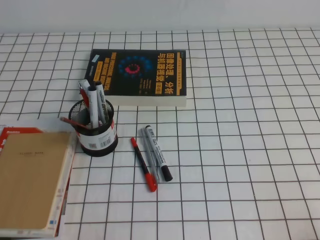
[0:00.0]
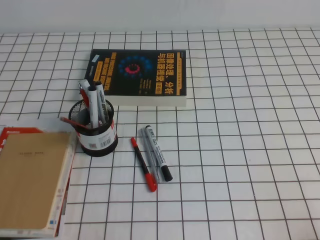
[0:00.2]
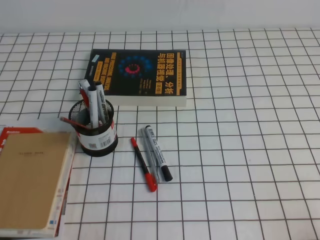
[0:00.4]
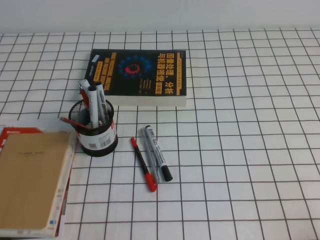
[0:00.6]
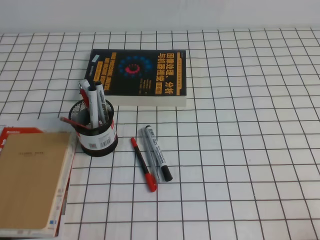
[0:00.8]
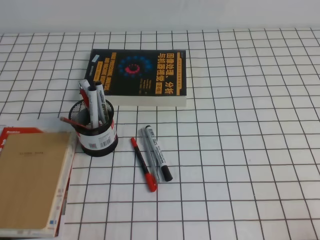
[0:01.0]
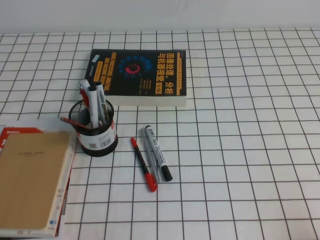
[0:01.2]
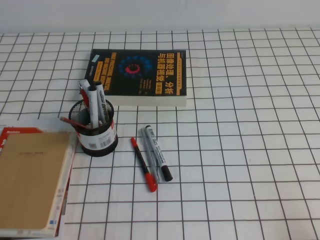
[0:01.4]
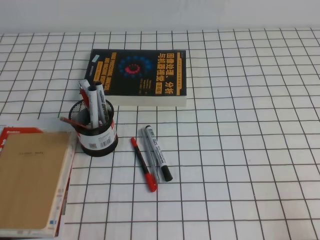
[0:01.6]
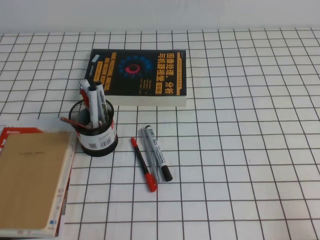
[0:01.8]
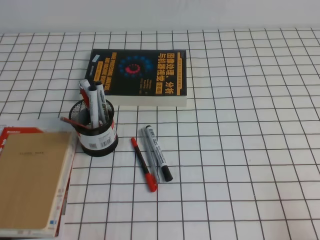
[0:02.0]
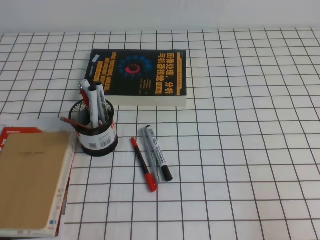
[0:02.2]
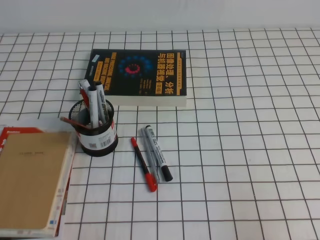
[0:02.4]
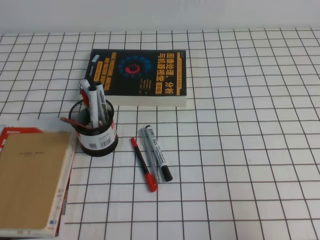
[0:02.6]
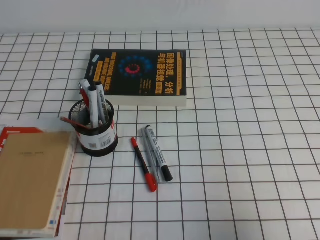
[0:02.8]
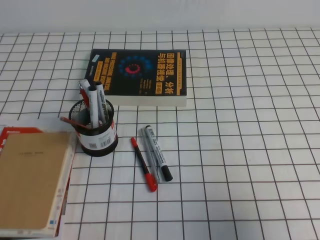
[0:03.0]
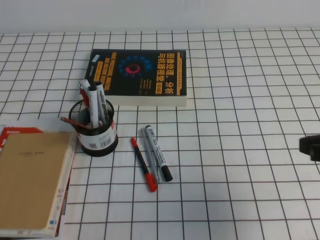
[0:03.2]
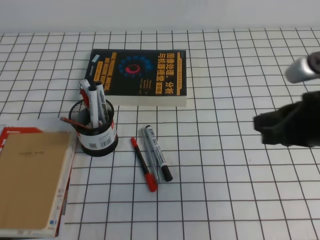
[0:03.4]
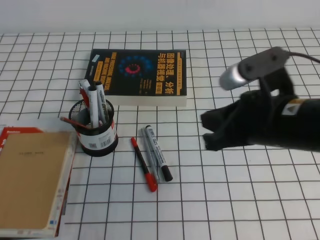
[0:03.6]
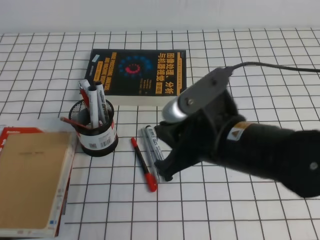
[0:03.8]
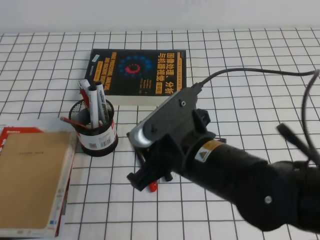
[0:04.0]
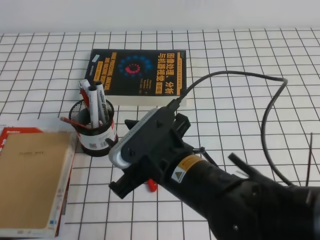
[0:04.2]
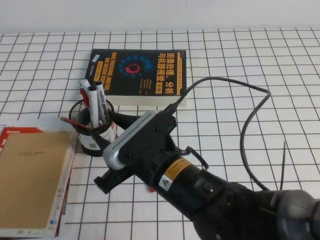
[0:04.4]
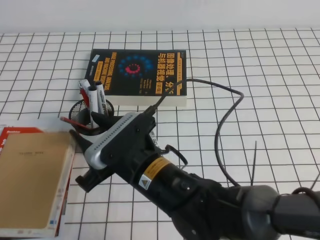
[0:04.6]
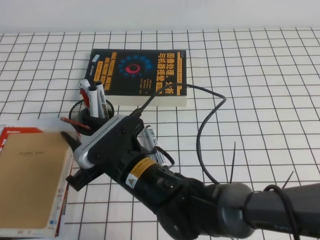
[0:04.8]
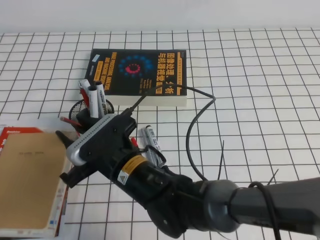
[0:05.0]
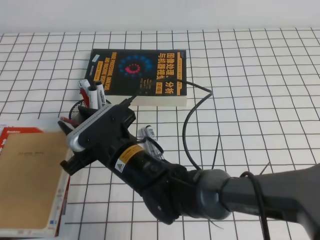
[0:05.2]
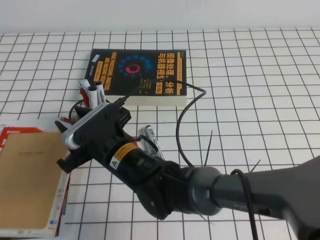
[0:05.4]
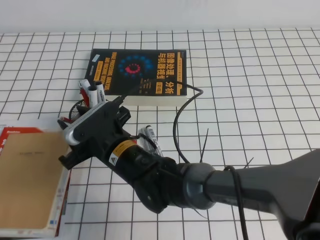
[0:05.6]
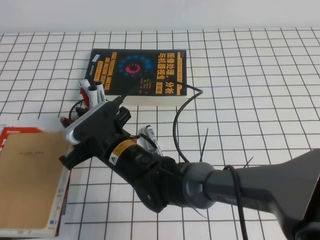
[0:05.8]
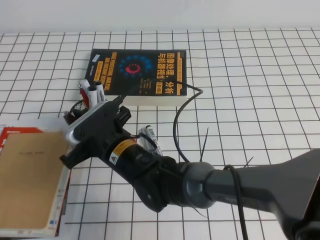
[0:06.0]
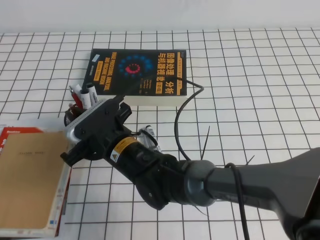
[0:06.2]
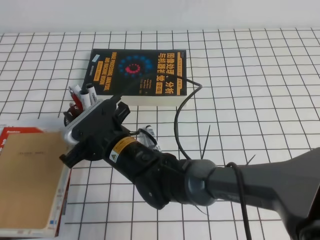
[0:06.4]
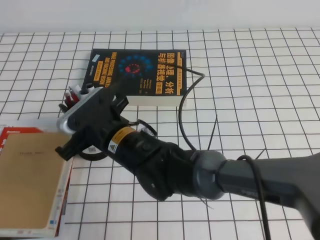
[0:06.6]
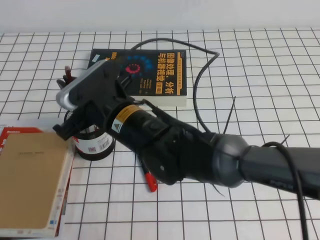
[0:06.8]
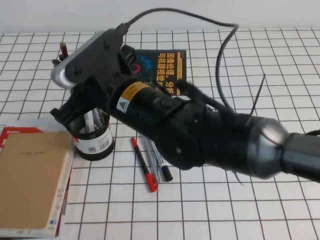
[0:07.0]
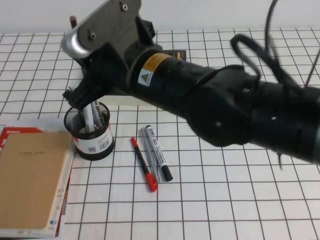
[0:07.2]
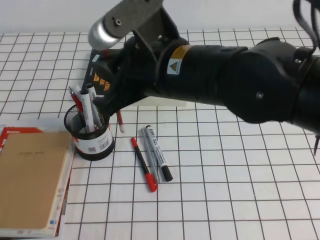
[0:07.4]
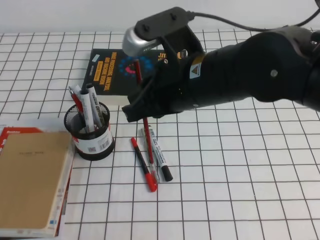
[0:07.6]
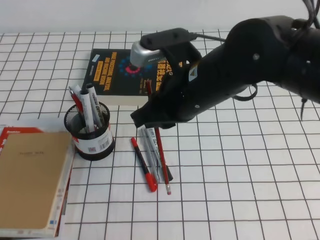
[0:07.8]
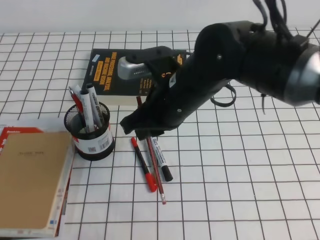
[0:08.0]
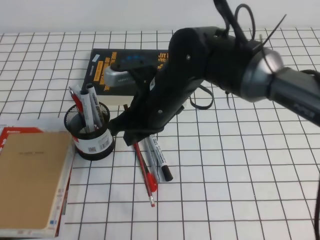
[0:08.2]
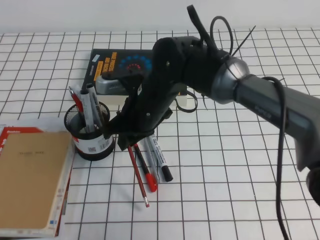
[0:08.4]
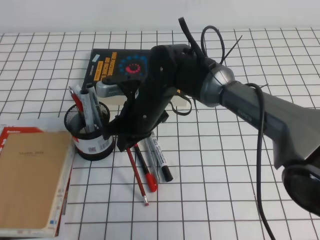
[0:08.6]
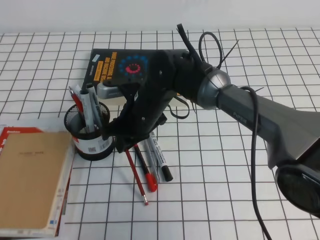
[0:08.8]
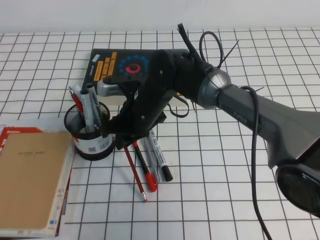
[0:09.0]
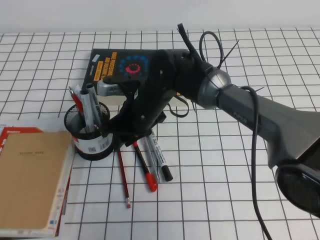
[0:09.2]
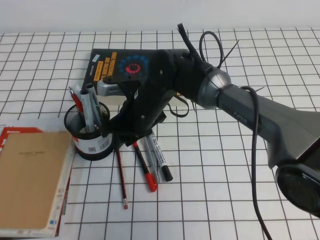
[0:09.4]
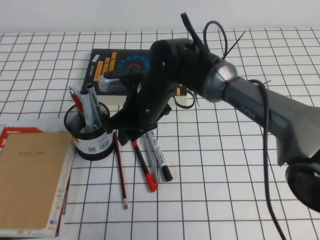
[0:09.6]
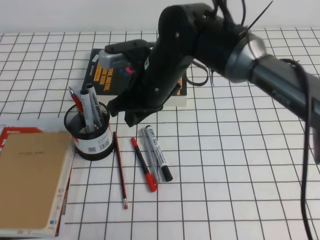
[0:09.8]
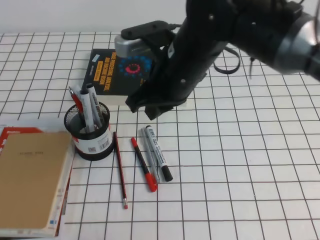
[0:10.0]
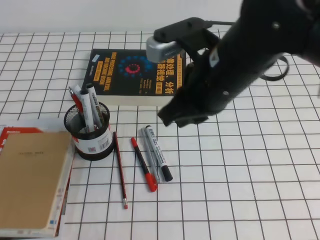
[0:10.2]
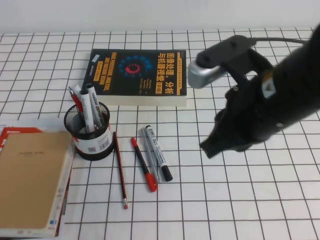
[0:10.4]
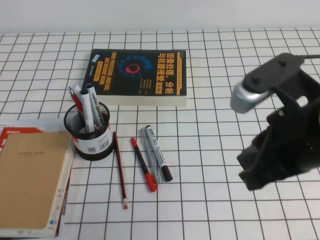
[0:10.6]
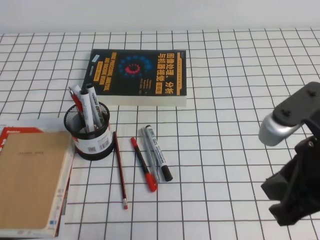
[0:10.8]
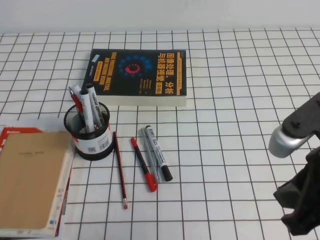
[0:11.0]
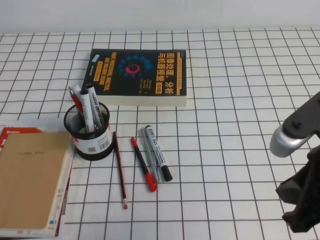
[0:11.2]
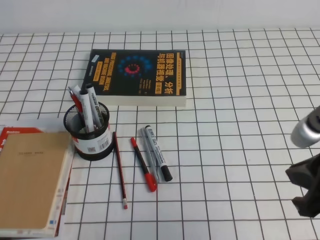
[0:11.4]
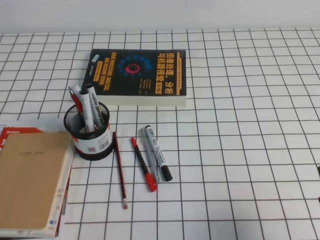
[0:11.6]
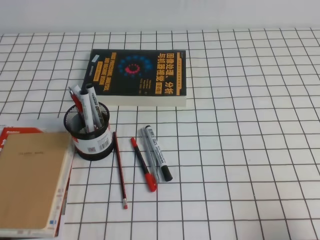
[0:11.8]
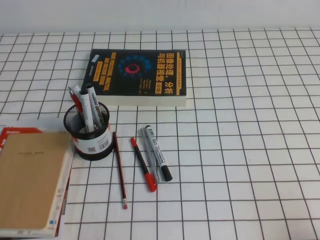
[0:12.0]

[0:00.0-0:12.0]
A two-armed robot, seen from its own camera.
0:01.6 to 0:03.0: The right gripper heads forward and upward, covering about 15 cm.
0:03.0 to 0:04.4: The right gripper goes roughly 30 cm to the left, and opens.
0:04.4 to 0:06.0: The right gripper moves to the left, forward and downward, roughly 15 cm, and closes.
0:06.0 to 0:07.6: The right gripper shifts approximately 20 cm upward and to the right, and closes up.
0:07.6 to 0:09.0: The right gripper moves downward, forward and to the left, roughly 20 cm.
0:09.0 to 0:10.4: The right gripper goes approximately 25 cm to the right, upward and backward, and opens and closes again.
0:10.4 to 0:12.0: The right gripper moves to the right, downward and backward, about 30 cm.

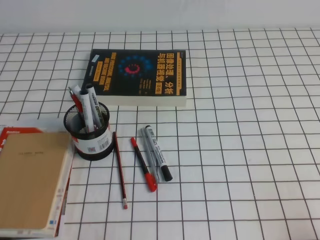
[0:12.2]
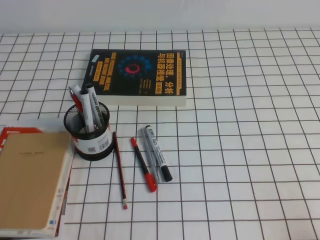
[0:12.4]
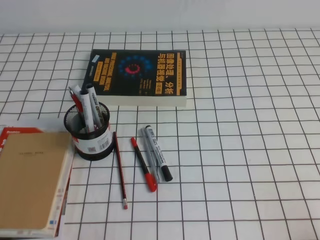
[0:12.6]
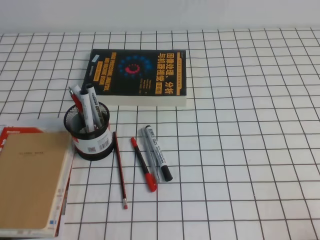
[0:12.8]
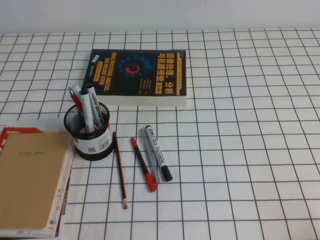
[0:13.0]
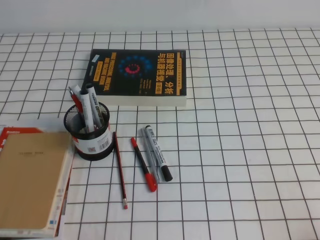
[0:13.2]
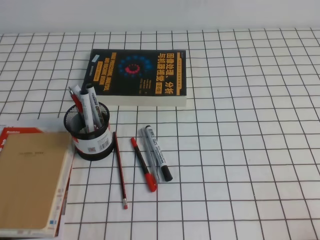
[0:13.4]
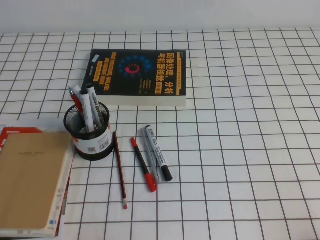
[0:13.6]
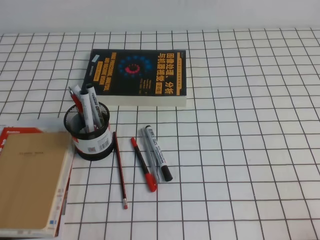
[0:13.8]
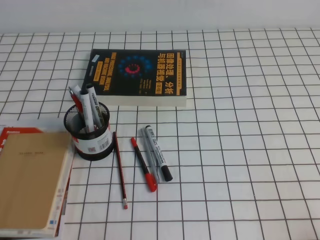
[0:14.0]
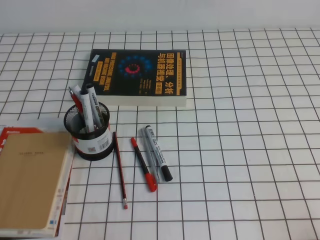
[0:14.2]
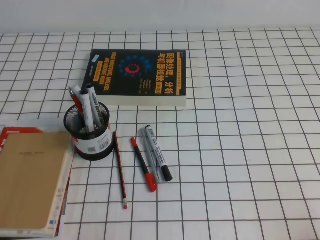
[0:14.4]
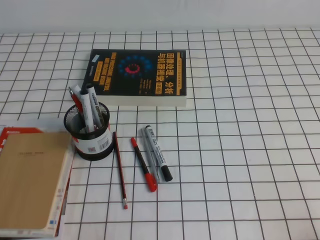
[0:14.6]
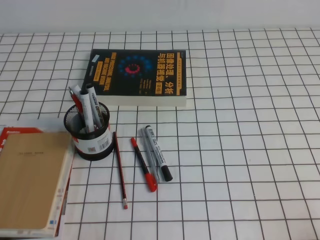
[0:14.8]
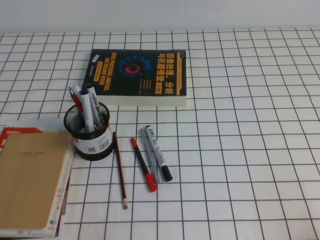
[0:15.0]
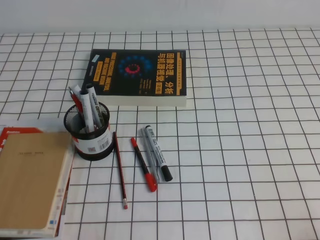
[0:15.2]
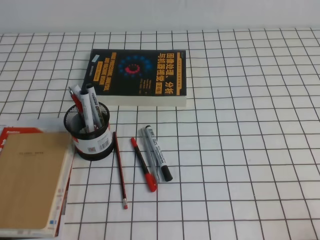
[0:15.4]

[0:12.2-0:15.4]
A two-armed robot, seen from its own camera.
0:13.8 to 0:15.4: Both grippers stay about where they are.

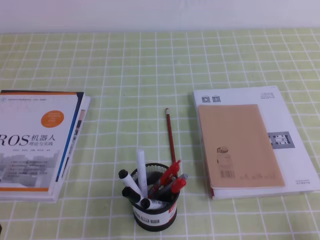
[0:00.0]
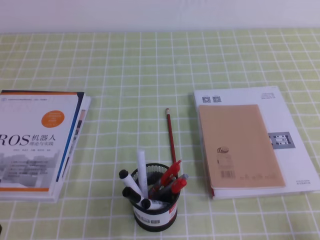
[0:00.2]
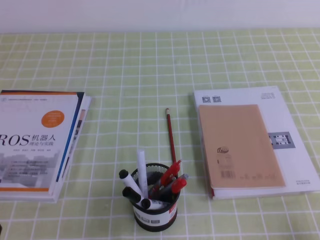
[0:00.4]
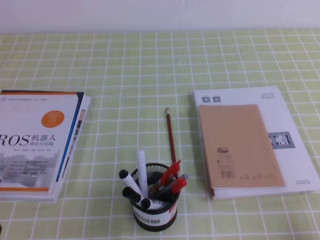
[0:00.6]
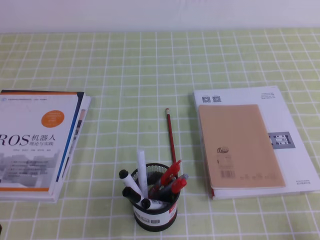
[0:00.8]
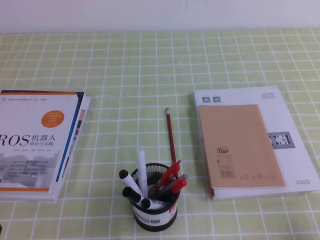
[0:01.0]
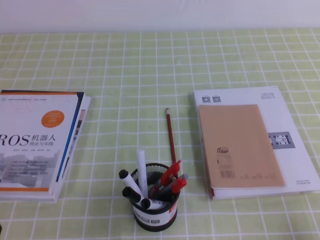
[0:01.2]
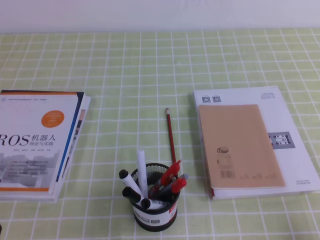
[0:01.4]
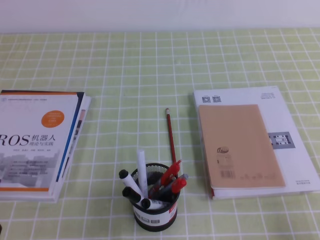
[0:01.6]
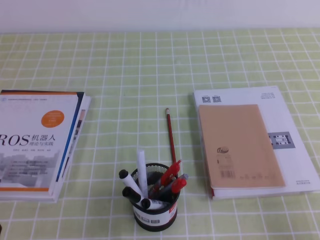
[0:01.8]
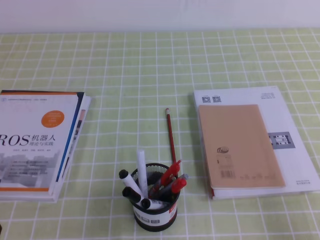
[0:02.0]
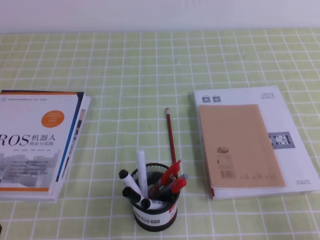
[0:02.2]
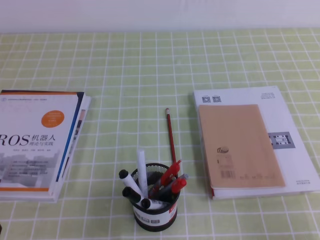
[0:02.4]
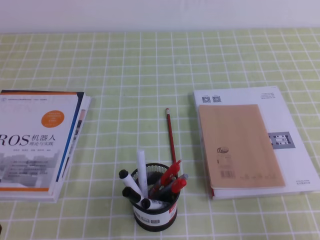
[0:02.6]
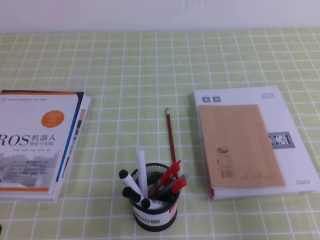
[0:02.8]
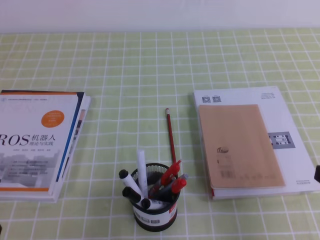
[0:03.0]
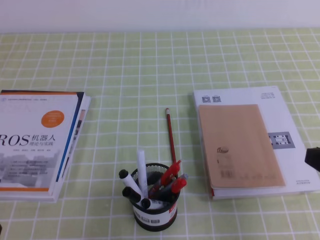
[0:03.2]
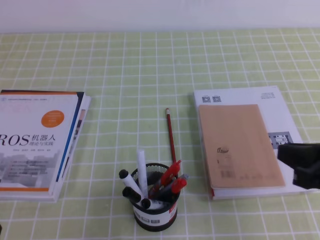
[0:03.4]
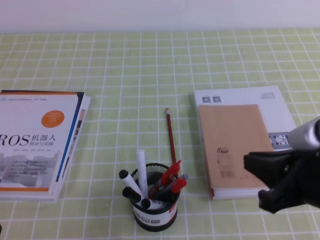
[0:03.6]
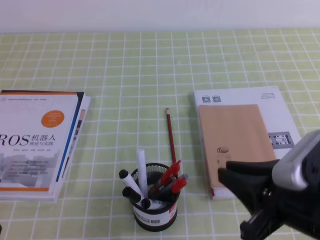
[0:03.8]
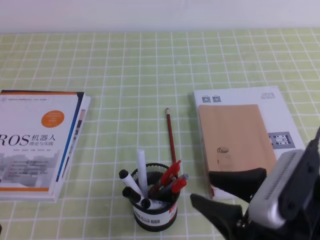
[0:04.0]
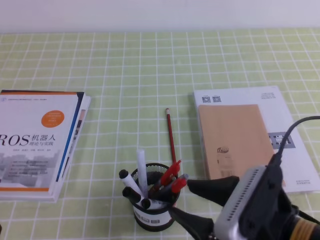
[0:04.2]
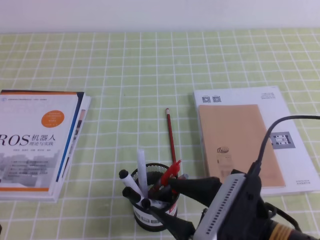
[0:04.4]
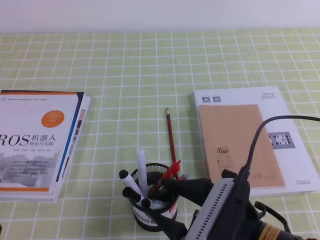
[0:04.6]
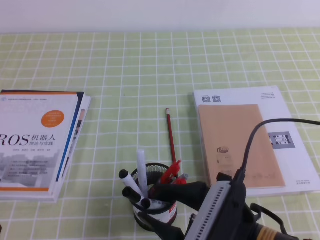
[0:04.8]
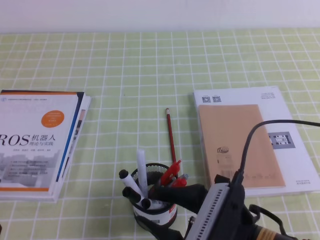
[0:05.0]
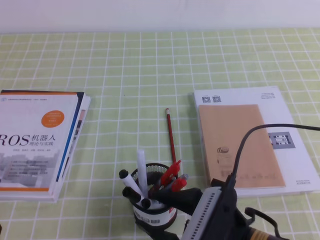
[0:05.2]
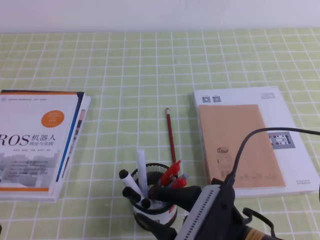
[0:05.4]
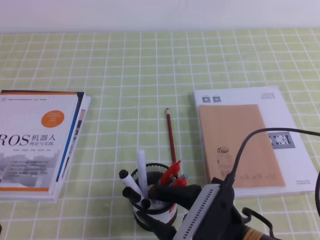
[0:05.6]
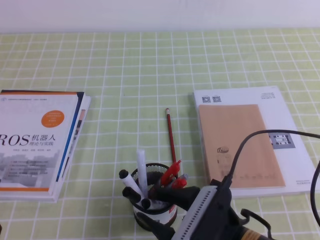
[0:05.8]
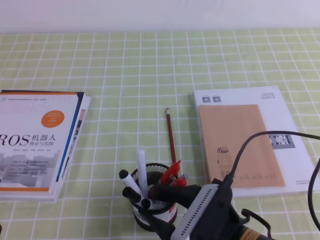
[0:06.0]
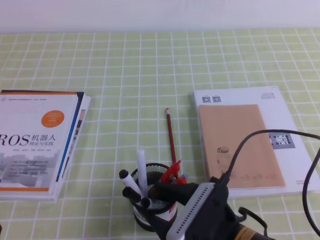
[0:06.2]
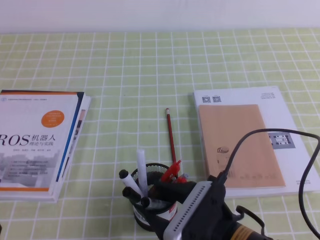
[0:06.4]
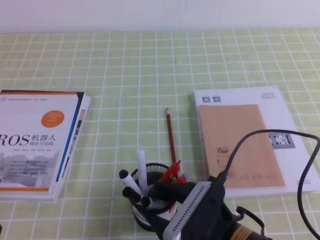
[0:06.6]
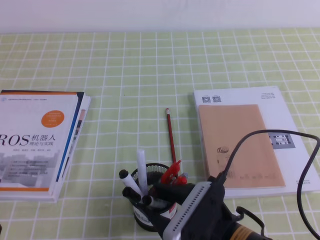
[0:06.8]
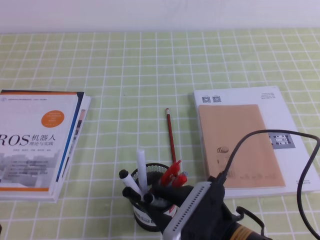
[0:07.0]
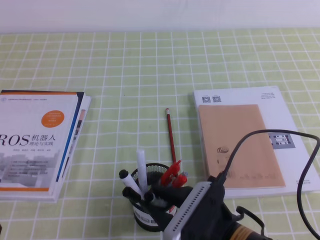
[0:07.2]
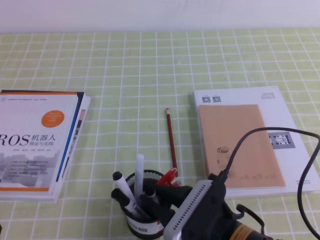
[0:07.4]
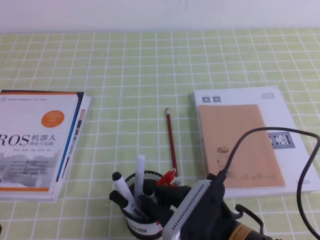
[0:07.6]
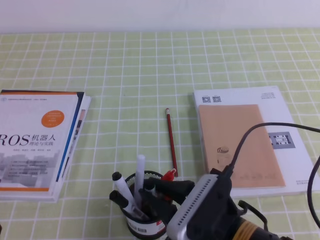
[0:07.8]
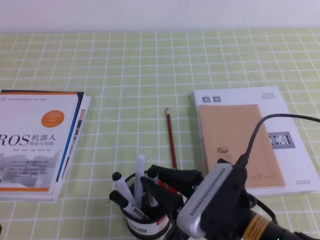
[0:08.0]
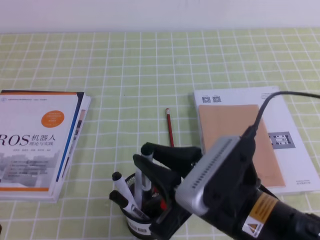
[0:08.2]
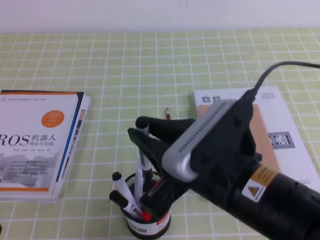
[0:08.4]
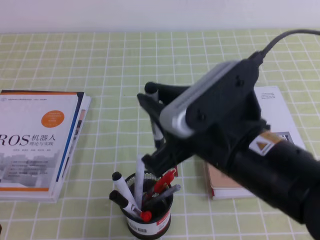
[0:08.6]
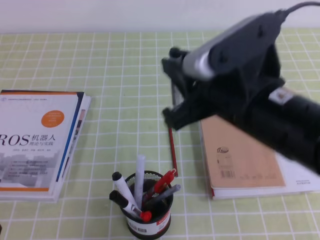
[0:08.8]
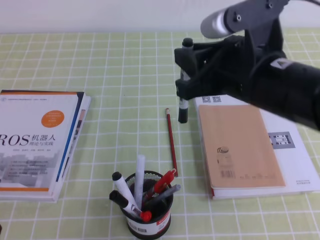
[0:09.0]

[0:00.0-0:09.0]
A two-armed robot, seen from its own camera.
0:01.6 to 0:03.0: The right gripper heads upward and forward, covering about 10 cm.
0:03.0 to 0:04.4: The right gripper goes about 15 cm to the left, and opens its fingers.
0:04.4 to 0:06.0: The right gripper shifts by some 5 cm.
0:06.0 to 0:07.6: The right gripper closes up.
0:07.6 to 0:09.0: The right gripper moves upward and forward, about 20 cm.
